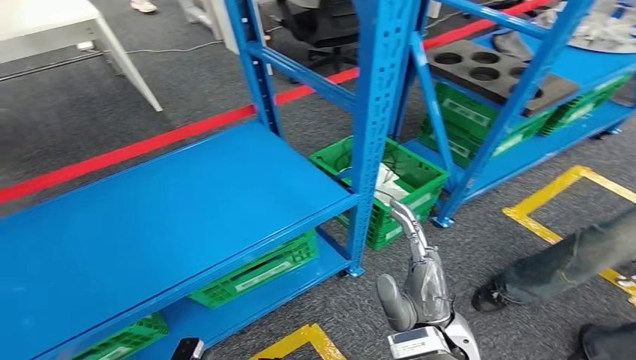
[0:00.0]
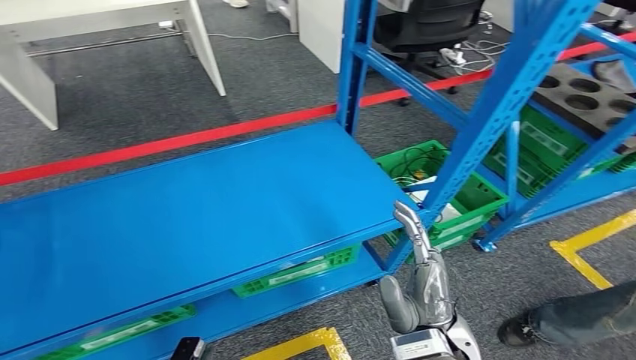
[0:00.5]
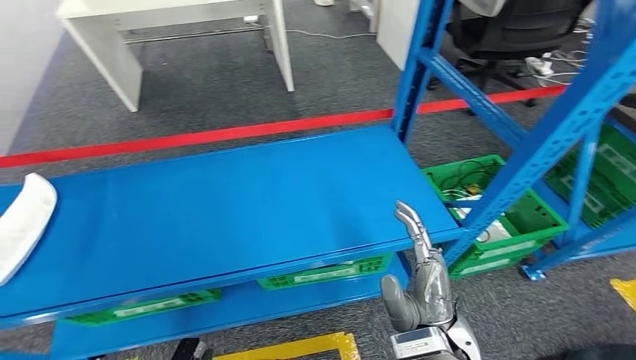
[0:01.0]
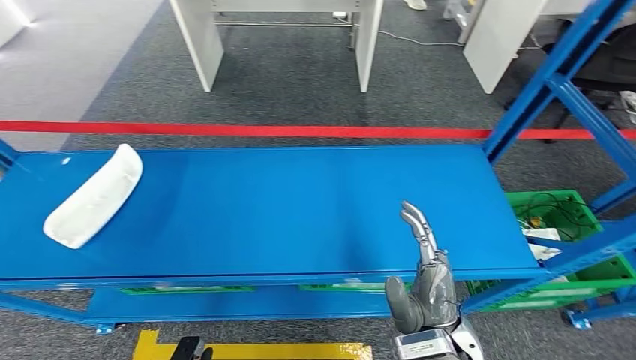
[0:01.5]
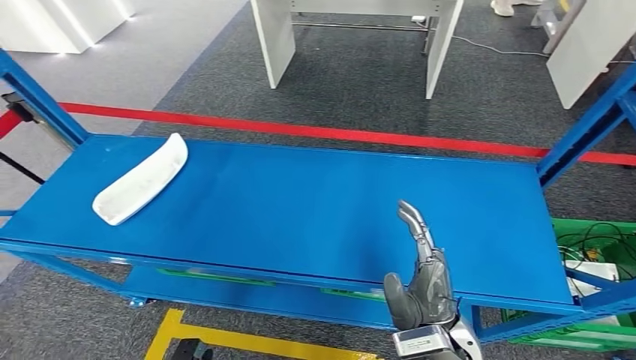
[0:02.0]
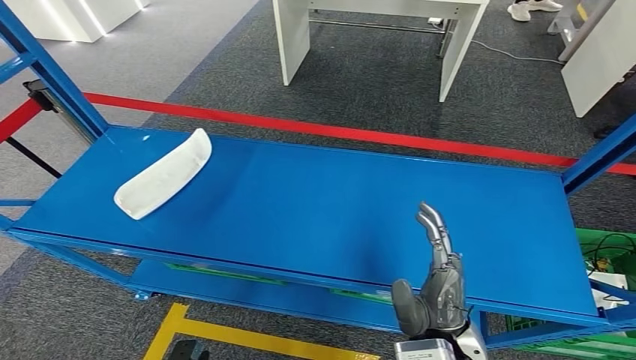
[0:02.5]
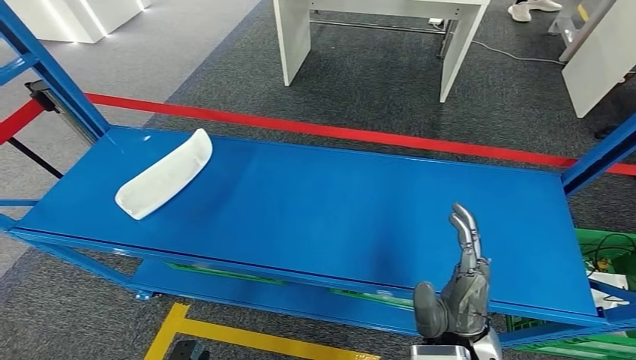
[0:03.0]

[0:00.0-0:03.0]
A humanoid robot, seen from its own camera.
Step, 0:00.0 to 0:03.0: Move to the initial position of the workbench.
